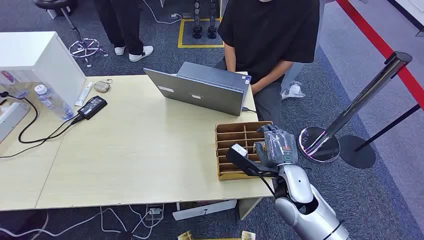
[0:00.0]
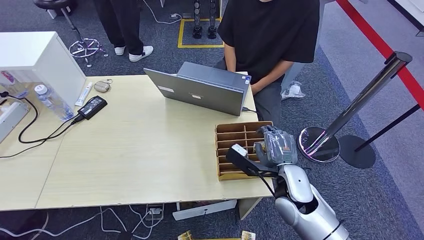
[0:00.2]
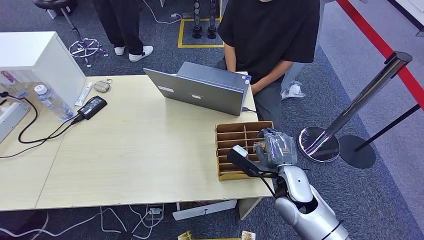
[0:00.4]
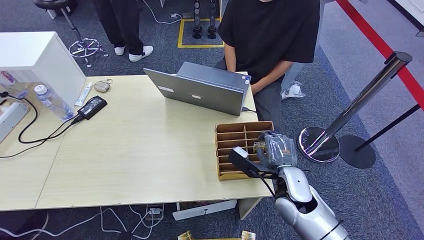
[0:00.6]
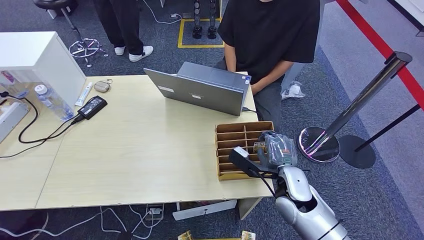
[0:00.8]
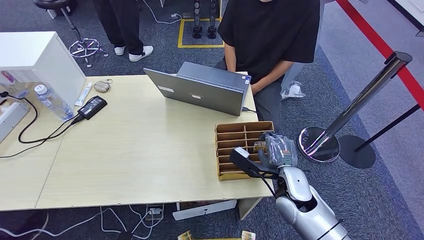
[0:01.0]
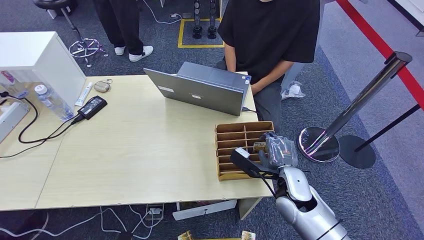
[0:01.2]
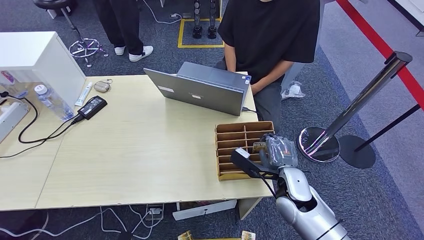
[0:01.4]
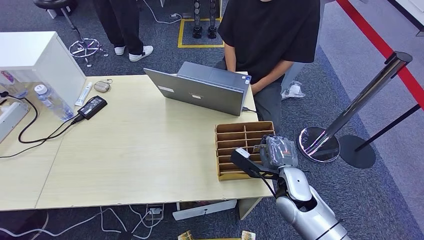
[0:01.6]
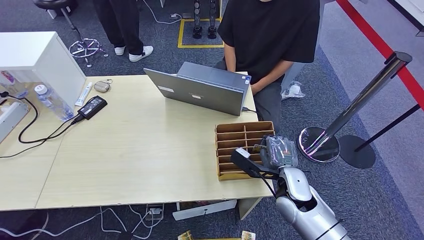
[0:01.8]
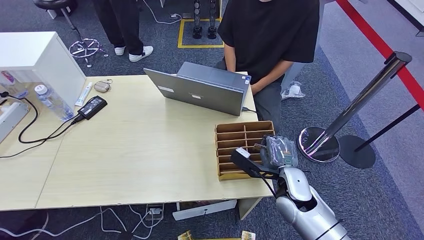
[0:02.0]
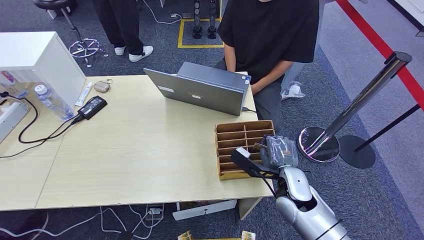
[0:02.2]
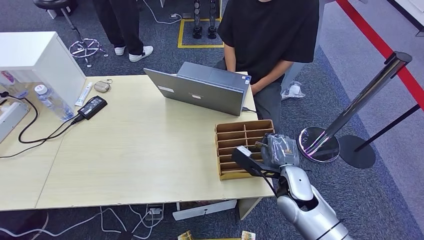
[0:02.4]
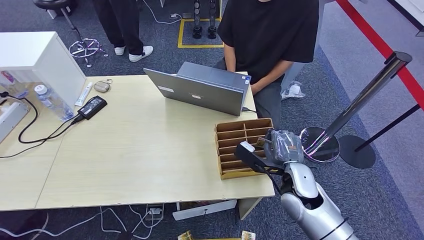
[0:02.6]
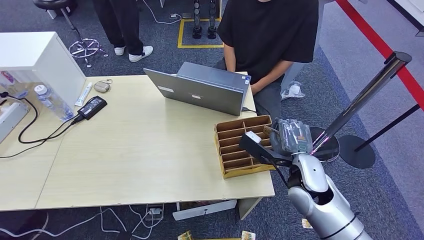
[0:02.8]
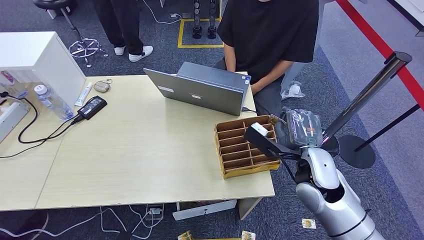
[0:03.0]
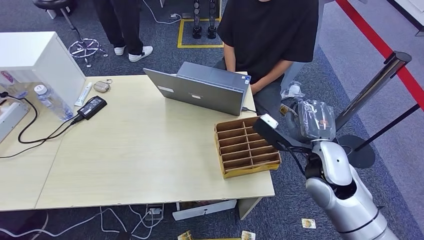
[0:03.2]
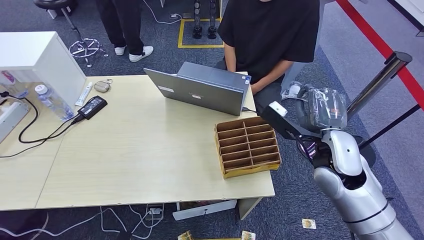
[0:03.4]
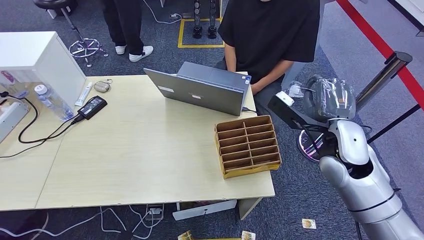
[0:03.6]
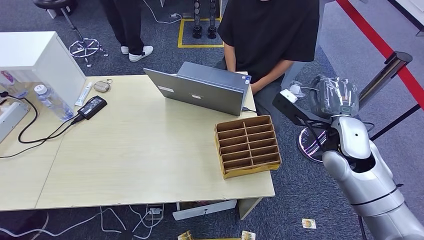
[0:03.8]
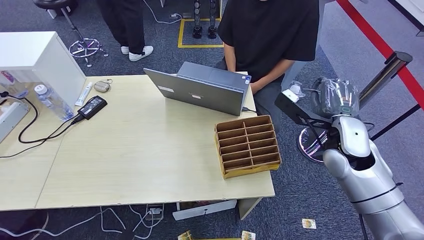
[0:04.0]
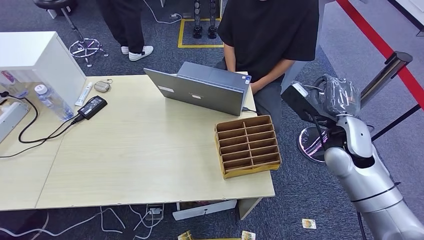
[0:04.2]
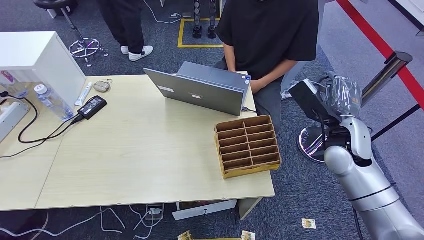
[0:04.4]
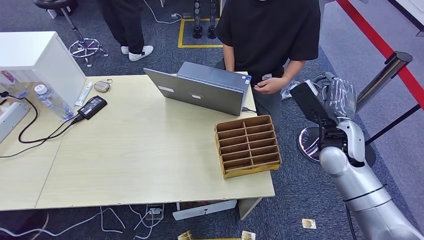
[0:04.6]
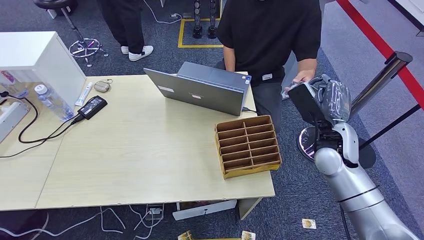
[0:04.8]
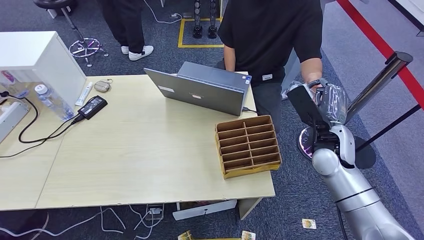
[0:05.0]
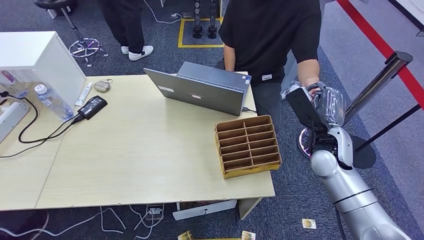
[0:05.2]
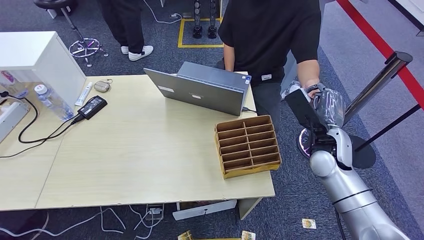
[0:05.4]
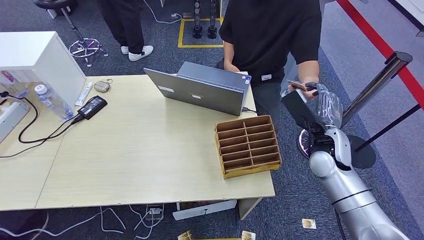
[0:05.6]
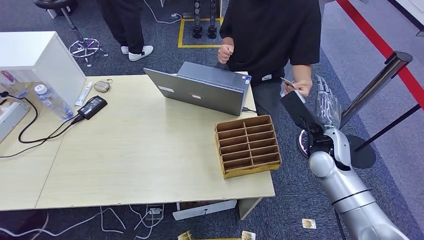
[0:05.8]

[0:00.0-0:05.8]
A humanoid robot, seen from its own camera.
Step, 0:00.0 to 0:03.2: Pick up the key card from the card box.
Step, 0:03.4 to 0:05.8: Hand the key card to the target.
0:01.4 to 0:02.8: The right hand shifts about 5 cm upward.
0:02.8 to 0:04.4: The right hand is displaced to the right, upward and forward by about 15 cm.
0:04.4 to 0:05.8: The right hand moves about 5 cm.
